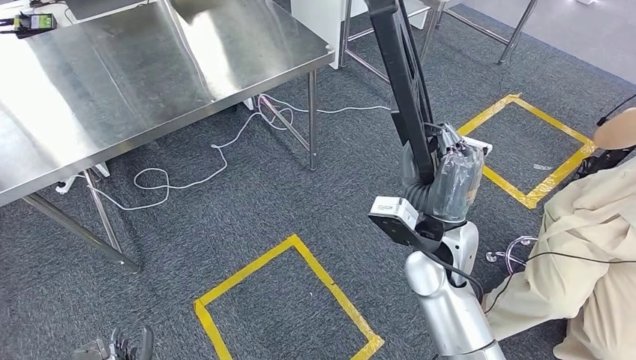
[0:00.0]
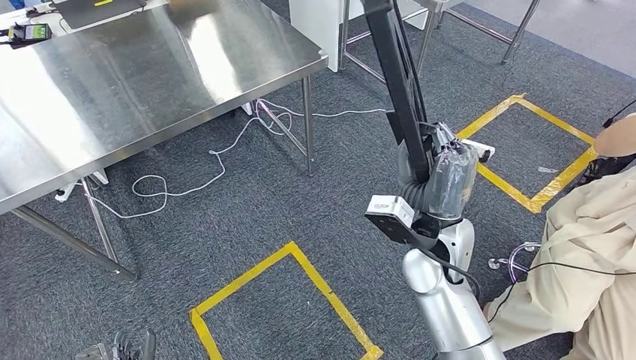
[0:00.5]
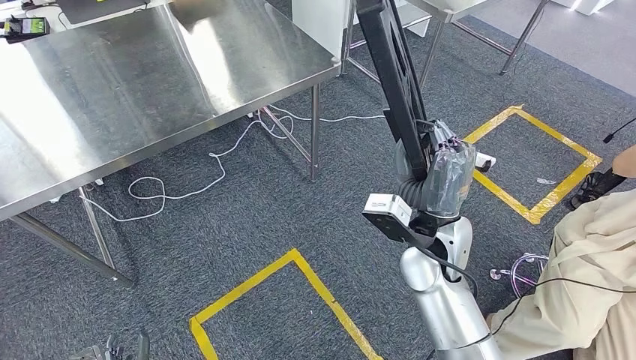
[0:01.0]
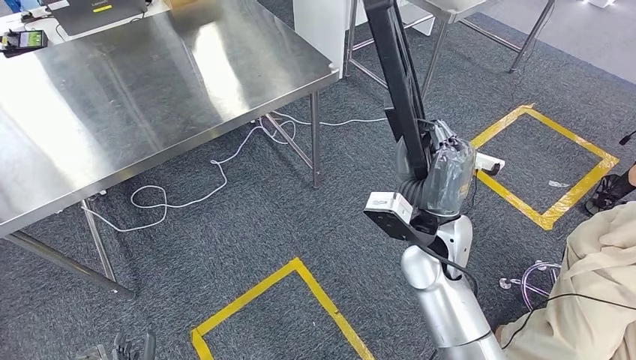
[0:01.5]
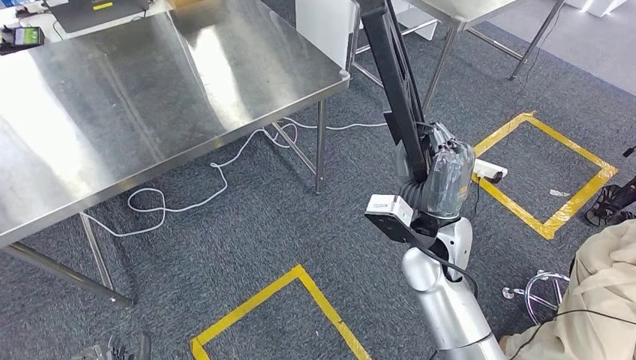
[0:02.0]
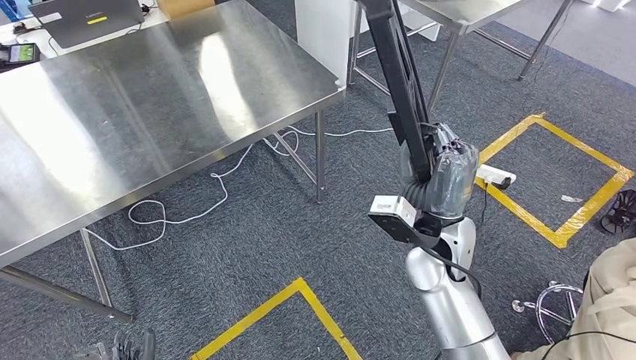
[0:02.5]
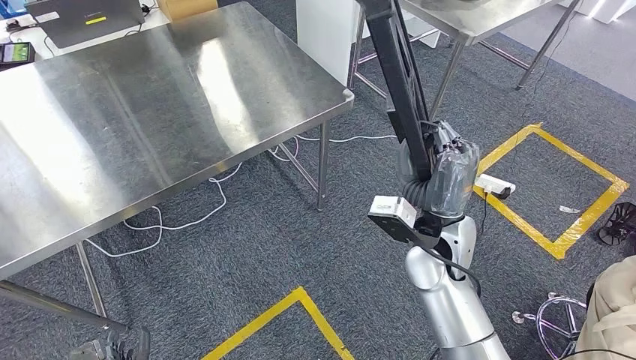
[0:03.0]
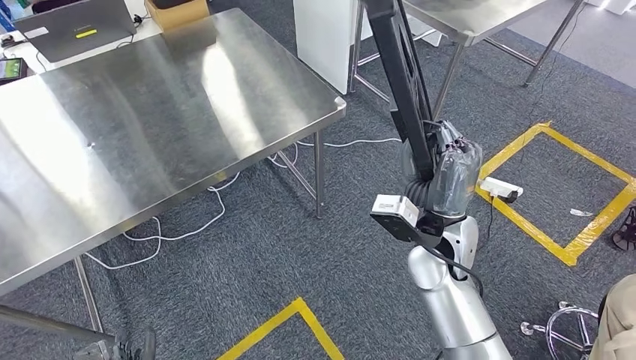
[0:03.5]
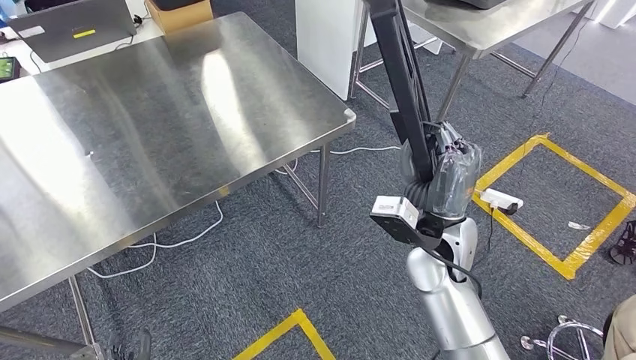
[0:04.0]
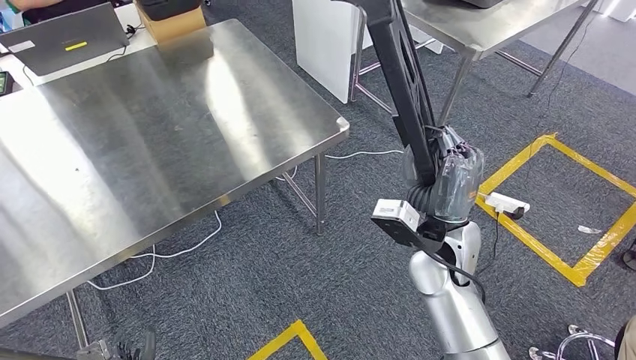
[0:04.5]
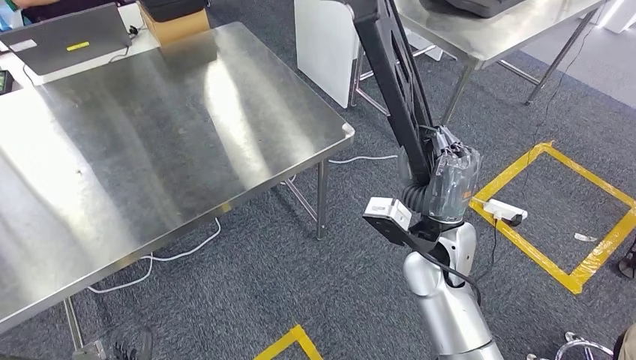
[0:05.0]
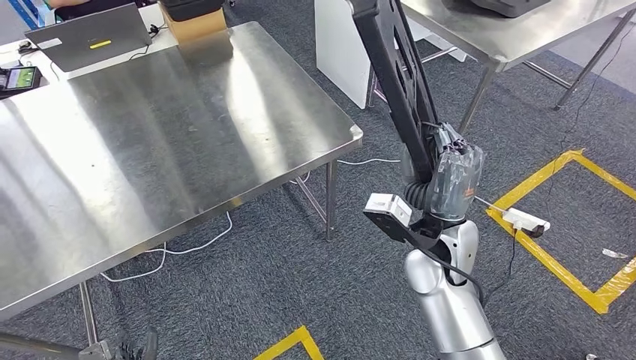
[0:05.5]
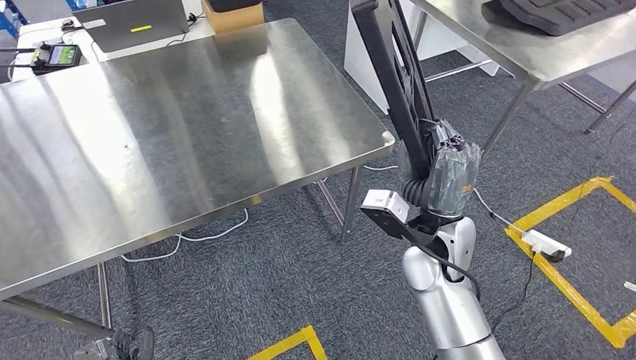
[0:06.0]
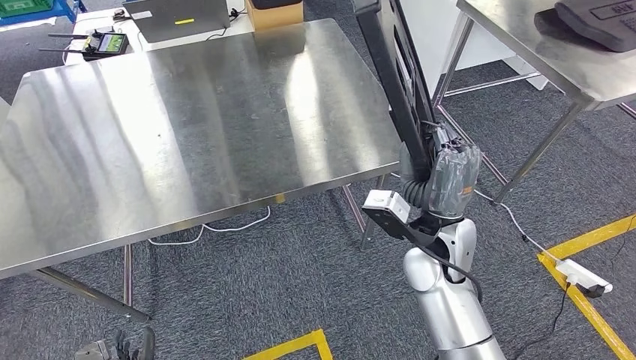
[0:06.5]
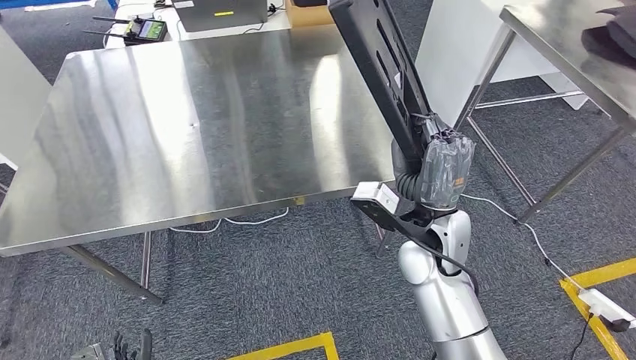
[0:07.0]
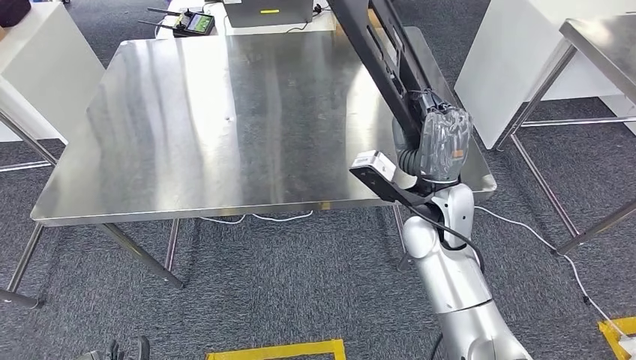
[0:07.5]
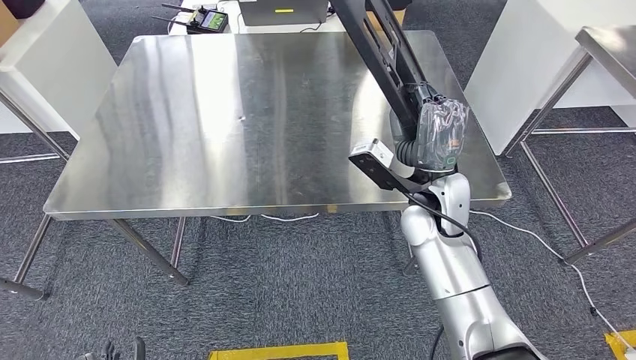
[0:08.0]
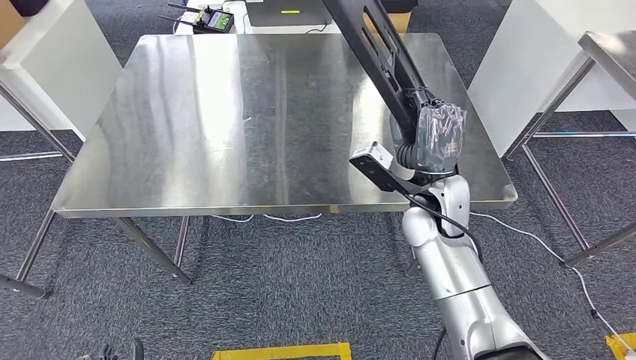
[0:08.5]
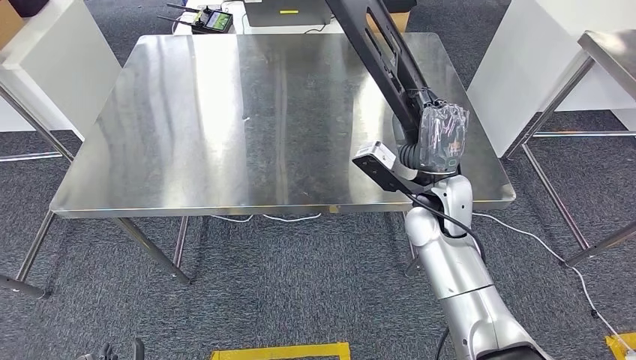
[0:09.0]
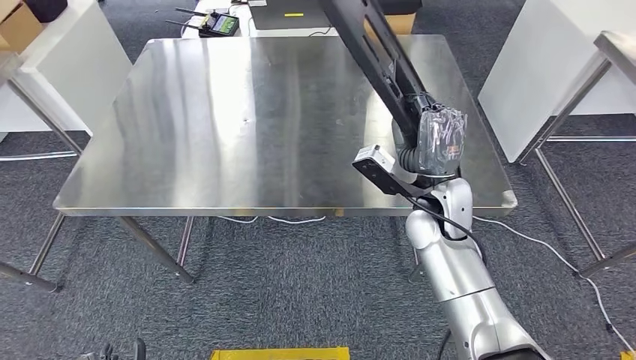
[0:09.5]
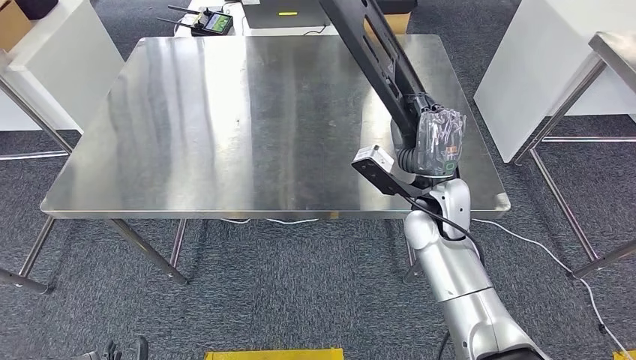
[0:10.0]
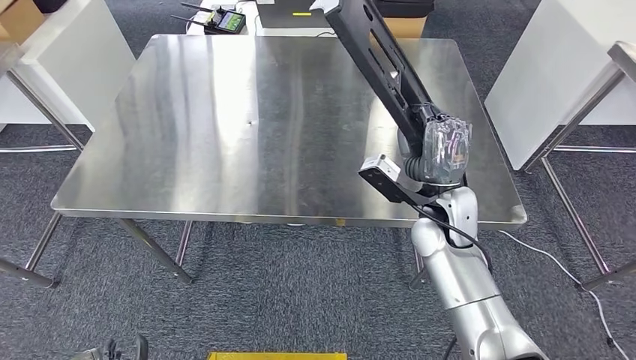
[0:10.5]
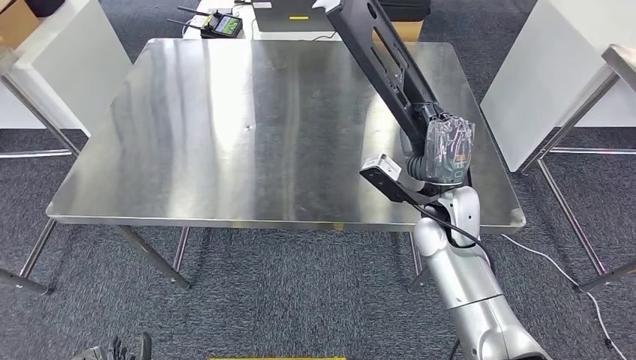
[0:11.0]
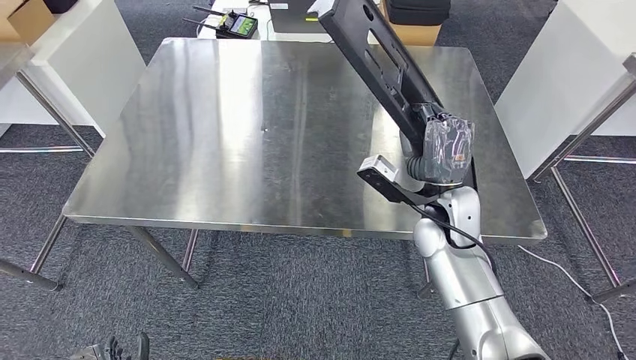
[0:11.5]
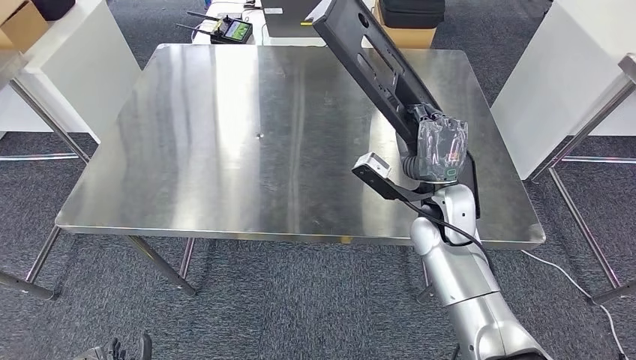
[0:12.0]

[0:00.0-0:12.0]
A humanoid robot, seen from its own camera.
Step, 0.0 to 4.0 s: Move the large material to the workbench.

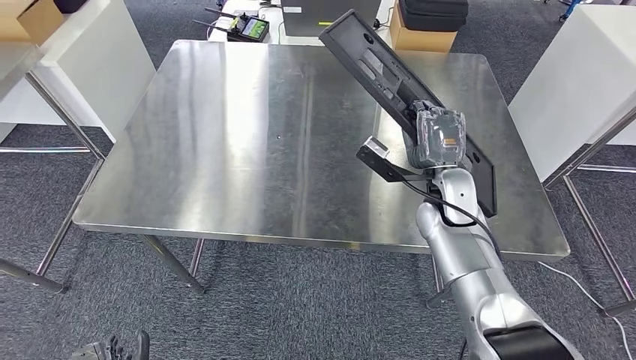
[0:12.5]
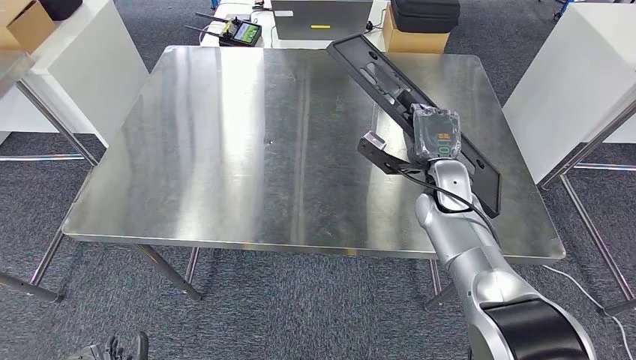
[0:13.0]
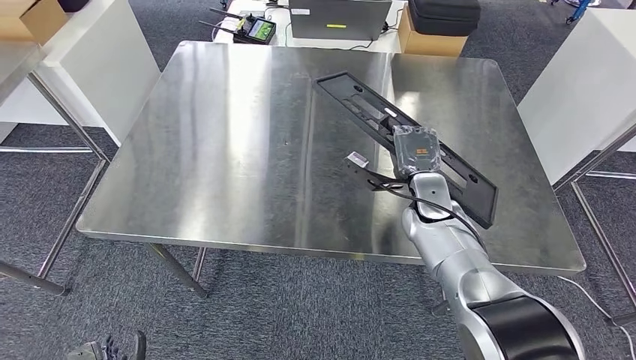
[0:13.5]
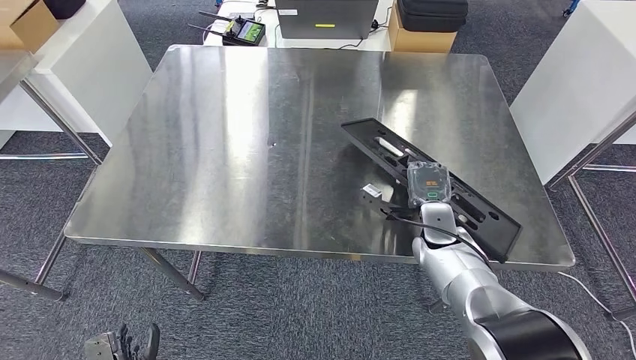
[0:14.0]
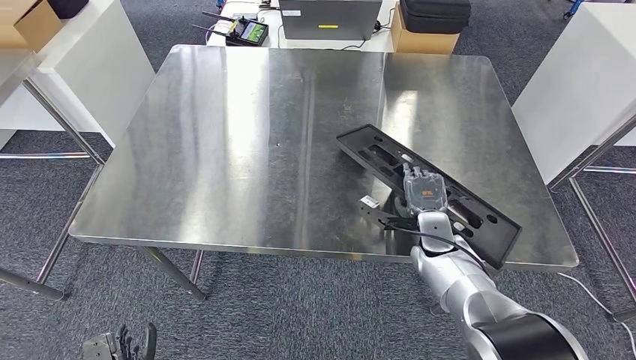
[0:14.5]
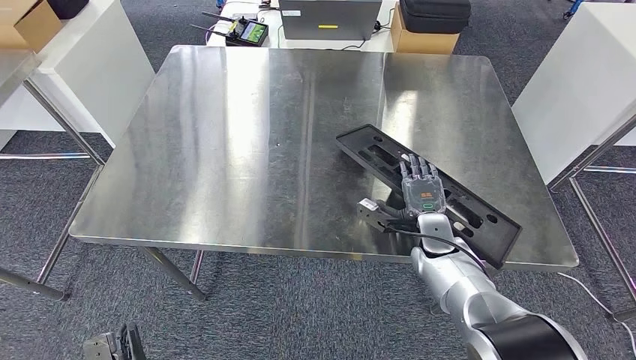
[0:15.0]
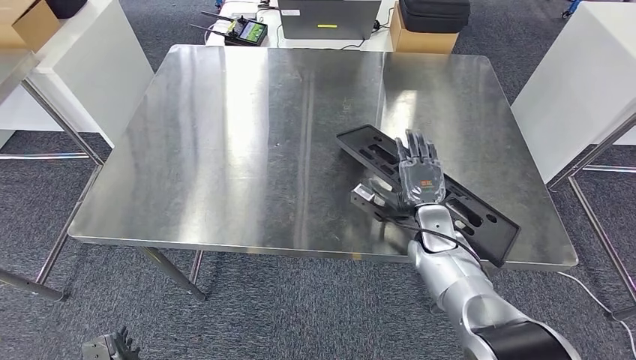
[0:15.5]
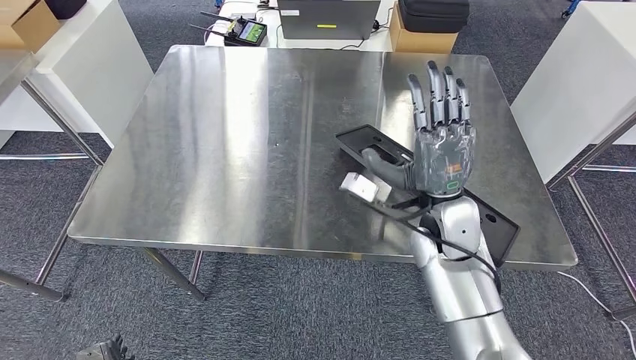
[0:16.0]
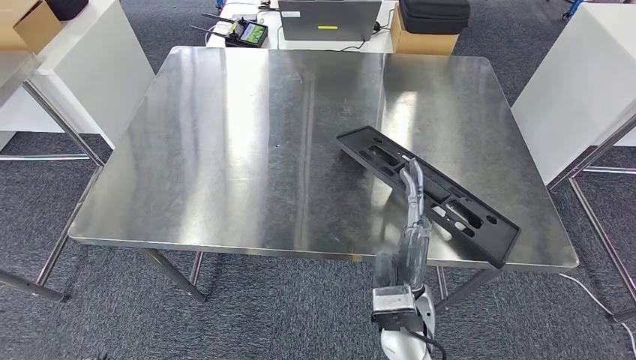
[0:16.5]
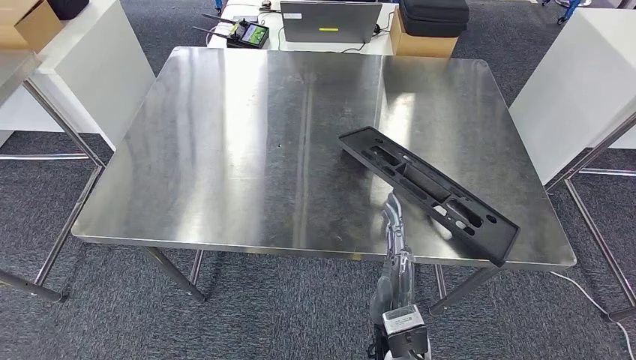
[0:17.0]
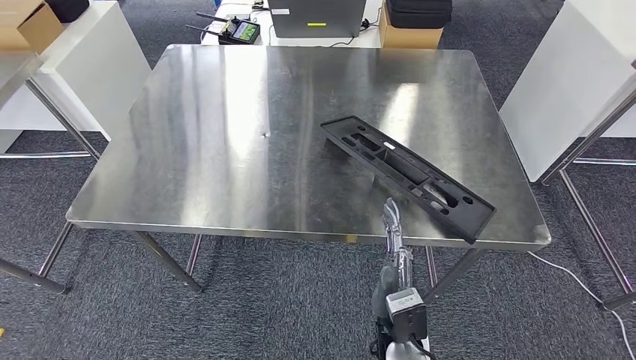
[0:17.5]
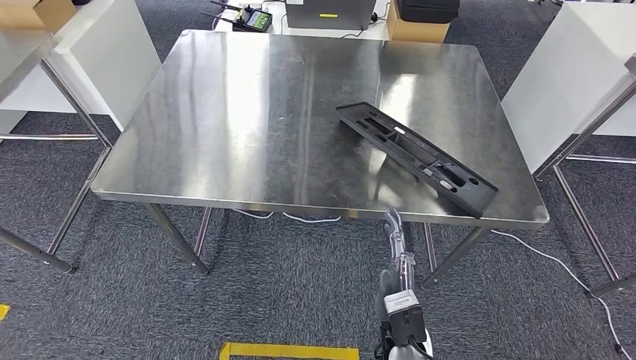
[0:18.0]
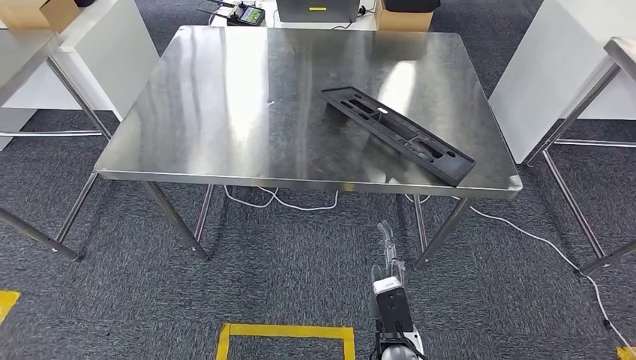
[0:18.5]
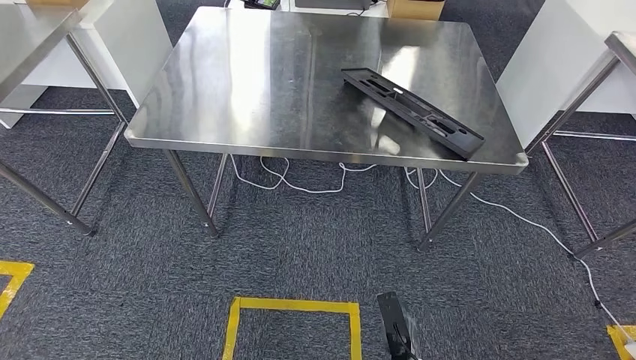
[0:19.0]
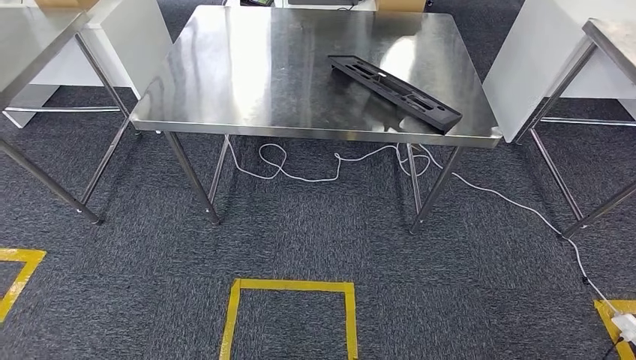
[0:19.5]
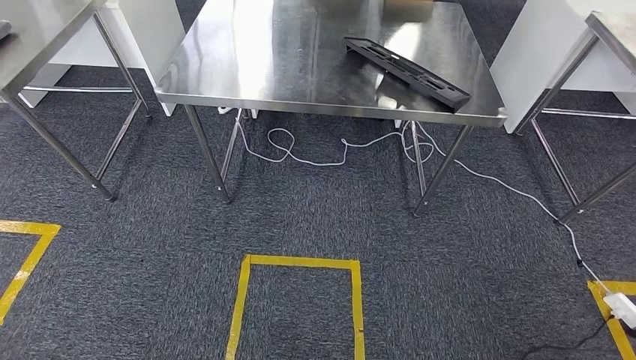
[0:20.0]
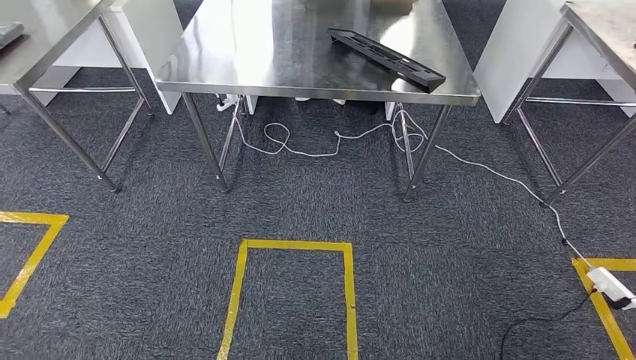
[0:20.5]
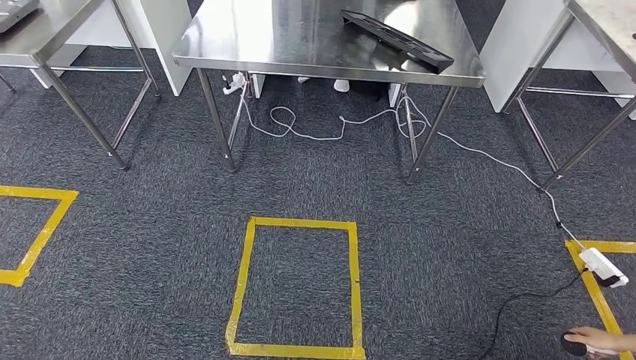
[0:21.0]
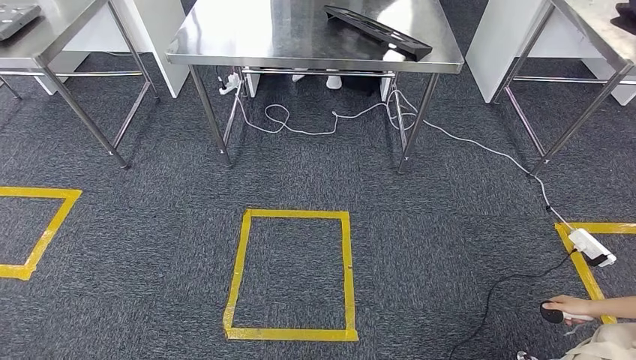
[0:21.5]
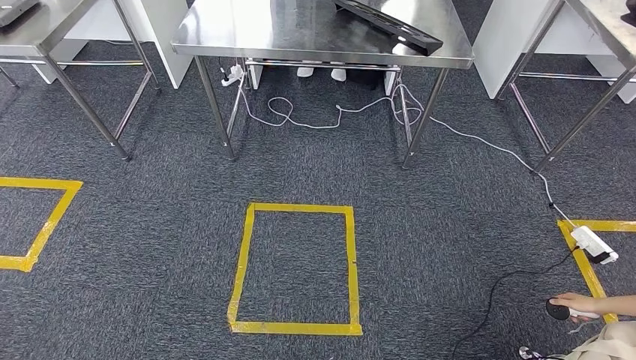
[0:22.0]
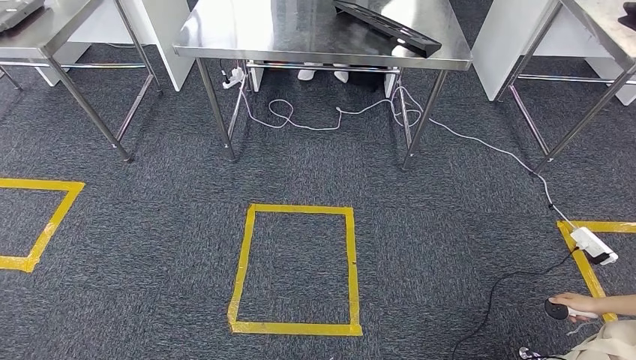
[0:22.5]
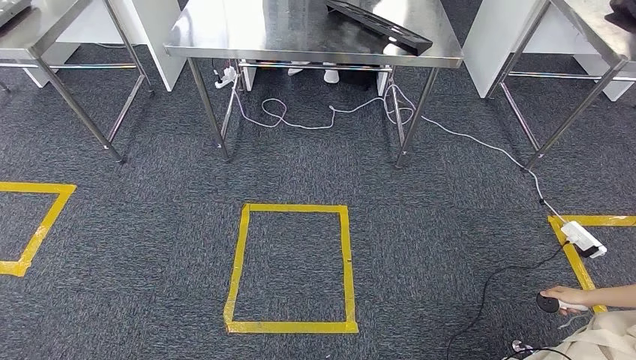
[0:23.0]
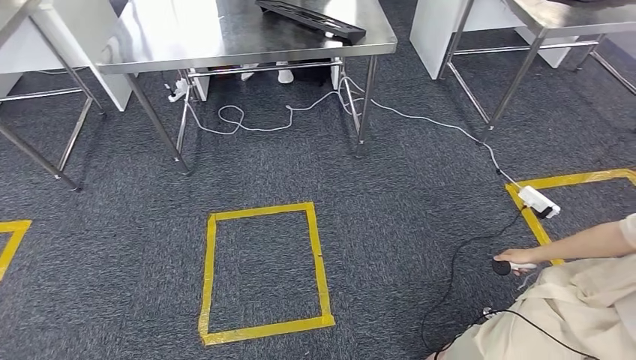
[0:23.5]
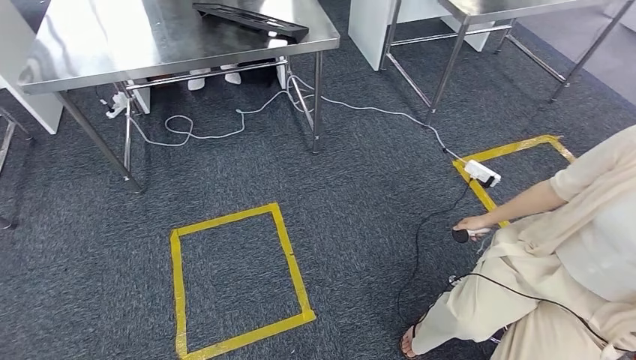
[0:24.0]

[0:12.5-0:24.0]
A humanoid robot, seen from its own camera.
Step, 12.5 to 21.0 s: Insert the large material into the corresponding slot on the workbench.
14.5 to 16.5 s: The right hand heads backward and to the left, covering approximately 20 cm.
